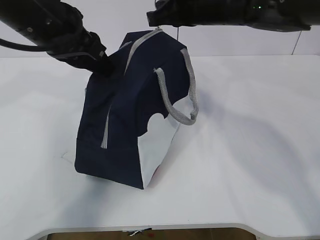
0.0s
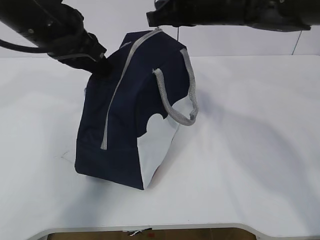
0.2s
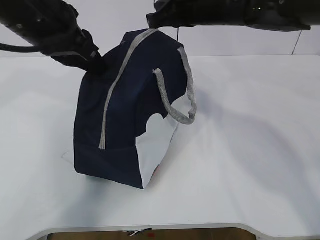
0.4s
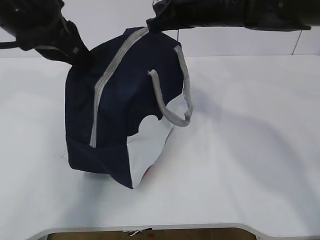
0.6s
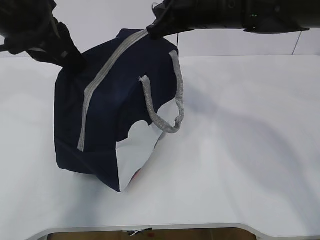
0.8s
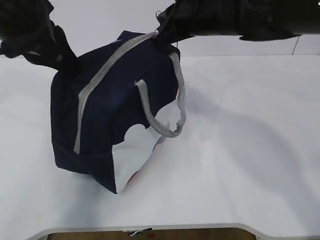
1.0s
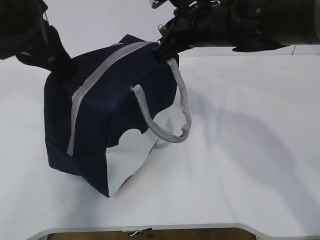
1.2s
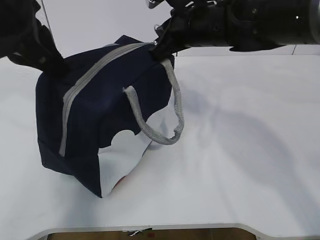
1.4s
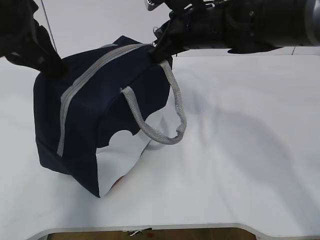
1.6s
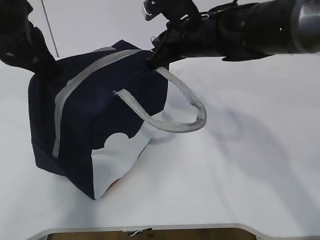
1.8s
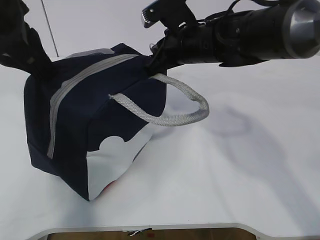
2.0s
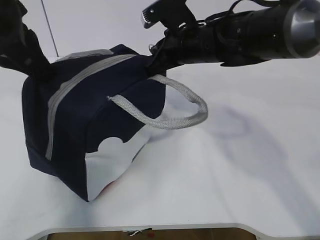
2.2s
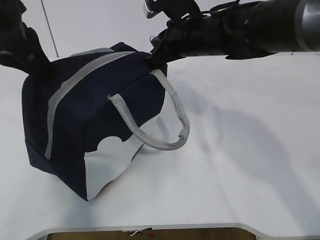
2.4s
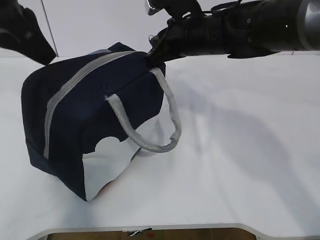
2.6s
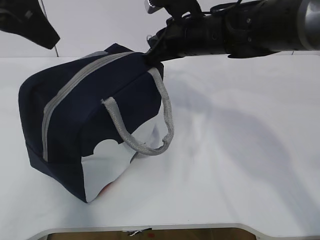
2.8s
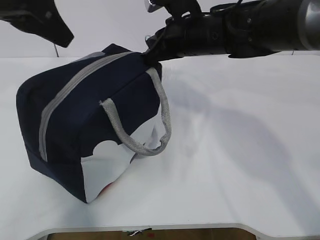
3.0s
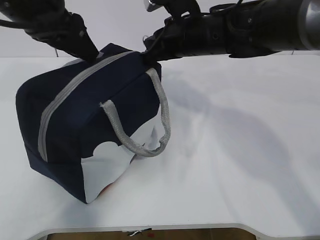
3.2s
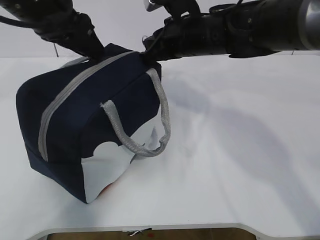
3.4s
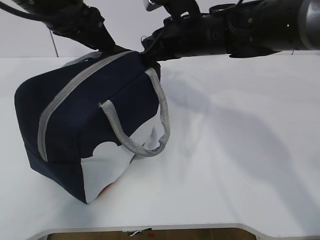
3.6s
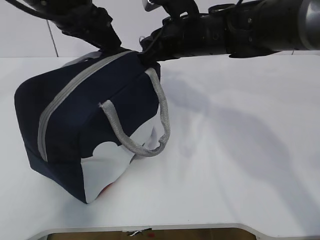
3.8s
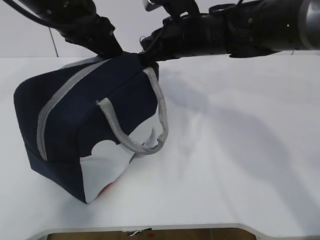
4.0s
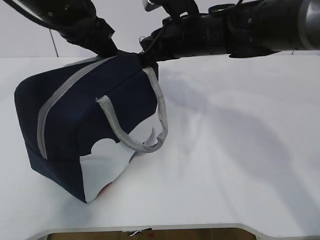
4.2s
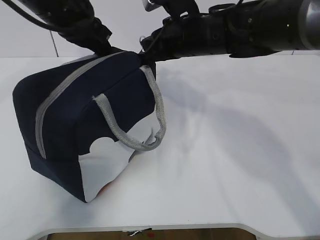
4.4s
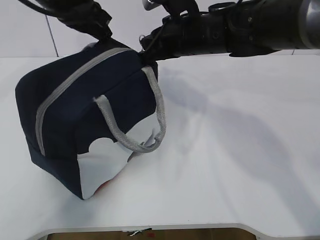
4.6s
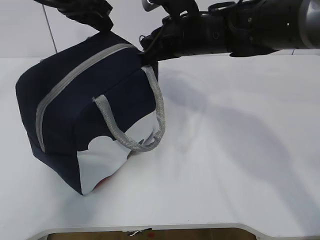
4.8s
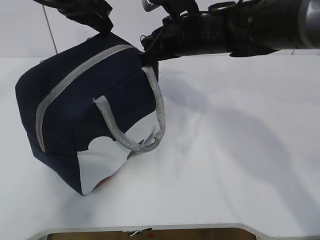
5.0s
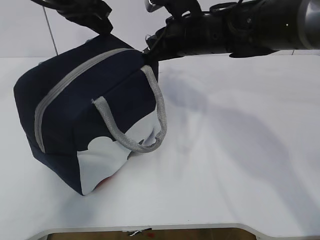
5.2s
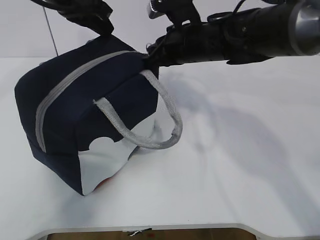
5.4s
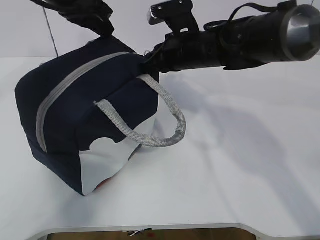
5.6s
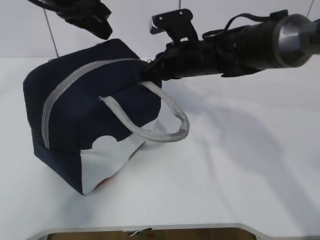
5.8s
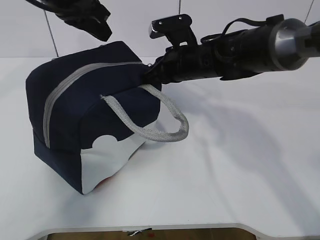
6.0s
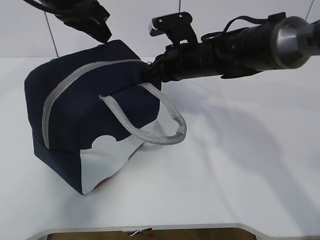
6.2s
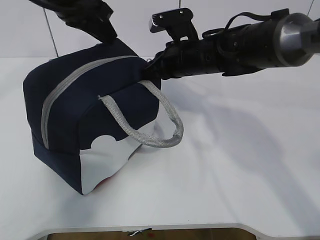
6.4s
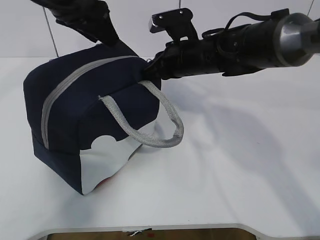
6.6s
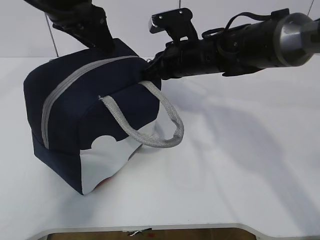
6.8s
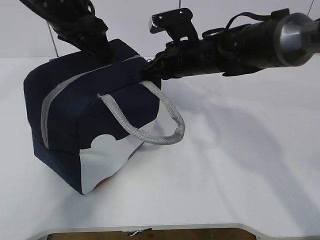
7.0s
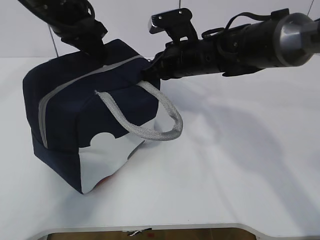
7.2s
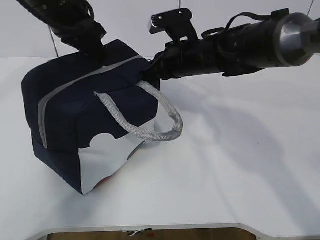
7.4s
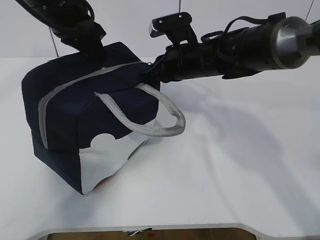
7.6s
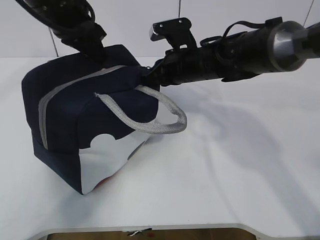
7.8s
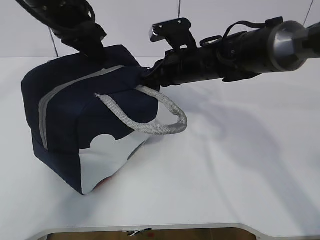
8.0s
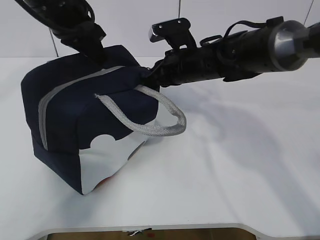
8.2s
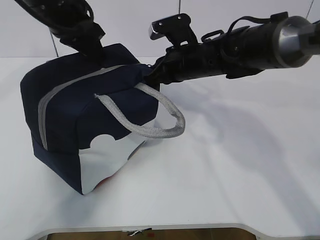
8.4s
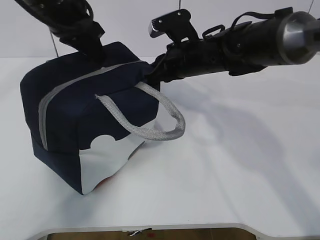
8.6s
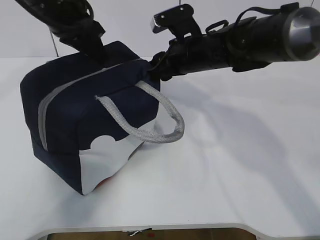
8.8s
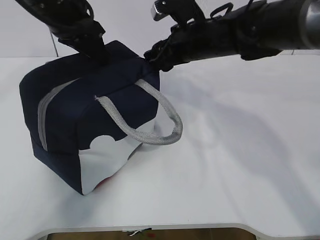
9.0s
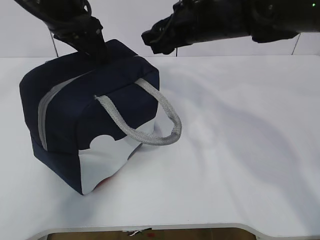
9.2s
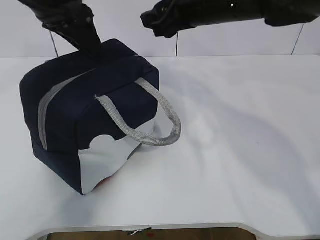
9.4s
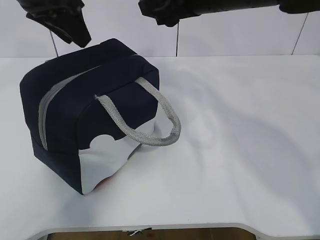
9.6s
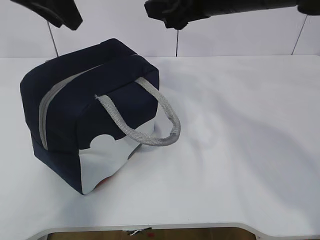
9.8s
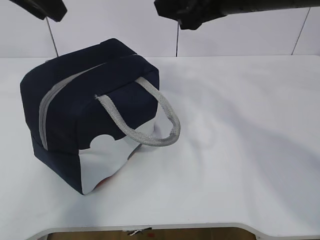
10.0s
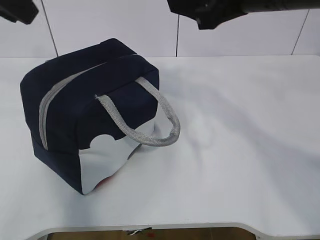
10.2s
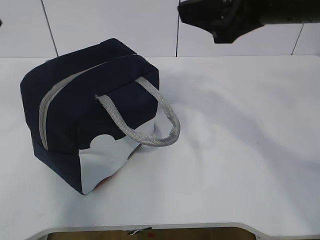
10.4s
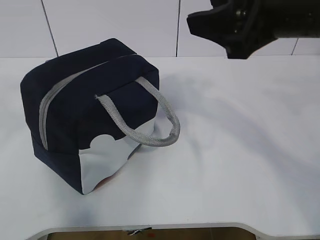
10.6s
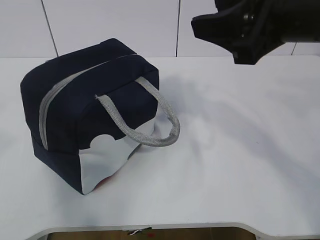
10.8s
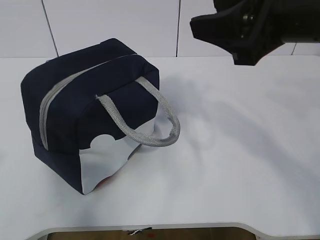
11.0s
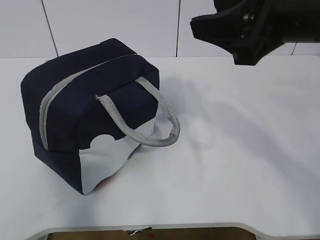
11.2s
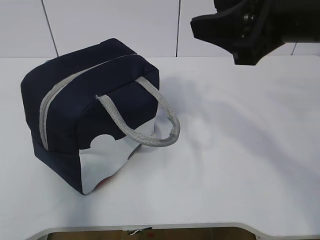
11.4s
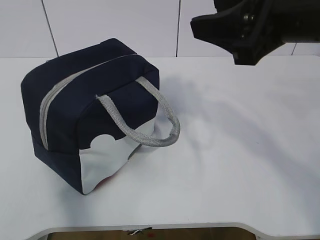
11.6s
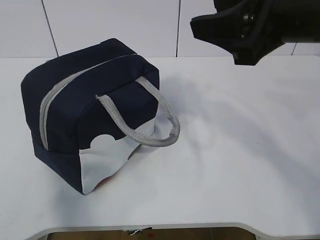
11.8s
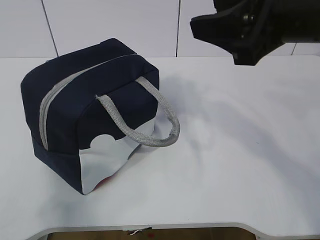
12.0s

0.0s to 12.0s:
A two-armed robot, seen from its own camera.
0.0s to 1.6s: The left gripper changes place by about 5 cm, and closes its fingers.
1.6s to 3.0s: The left gripper opens its fingers.
3.0s to 4.4s: The left gripper moves forward and downward, about 10 cm, and closes its fingers.
4.4s to 6.0s: The right gripper travels downward by about 5 cm.
6.0s to 7.6s: The left gripper opens, then closes once more.
7.6s to 9.0s: The right gripper opens. Meanwhile the left gripper opens its fingers.
9.0s to 10.4s: The left gripper goes approximately 20 cm backward, upward and to the left; the right gripper heads backward and upward, covering roughly 20 cm.
10.4s to 12.0s: The left gripper moves backward, downward and to the left, about 30 cm.

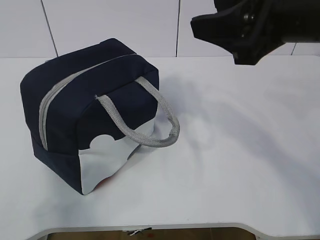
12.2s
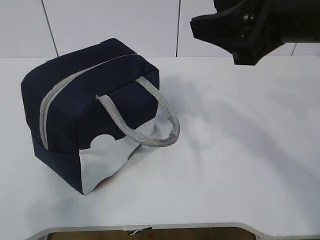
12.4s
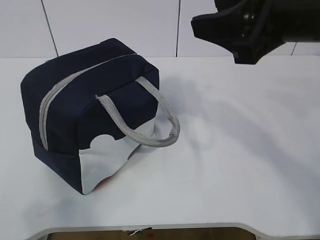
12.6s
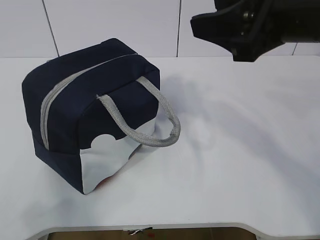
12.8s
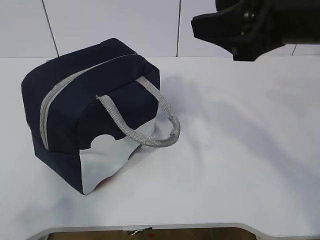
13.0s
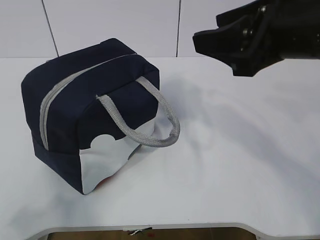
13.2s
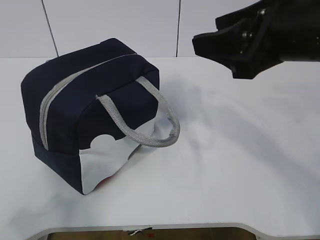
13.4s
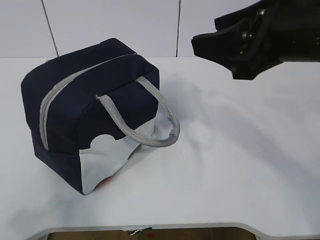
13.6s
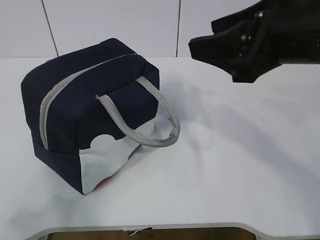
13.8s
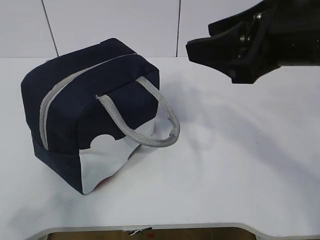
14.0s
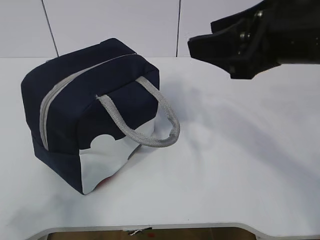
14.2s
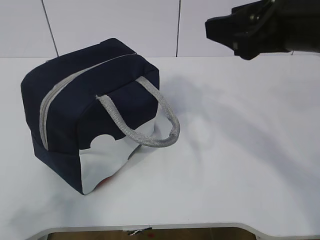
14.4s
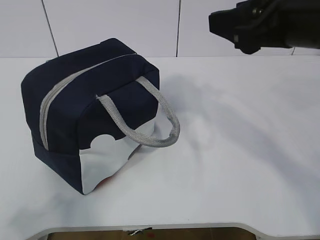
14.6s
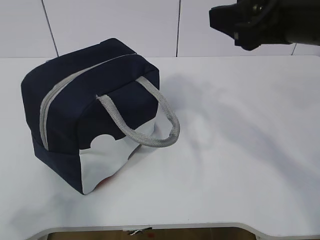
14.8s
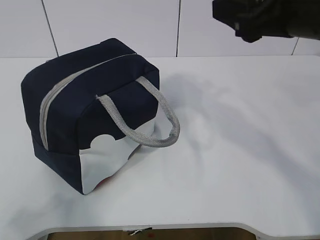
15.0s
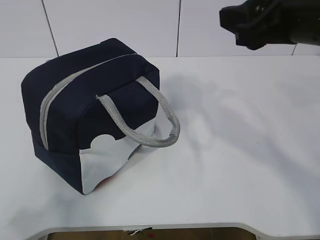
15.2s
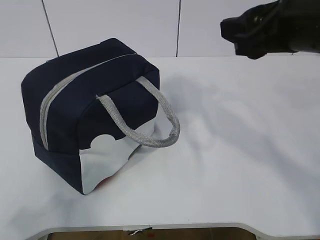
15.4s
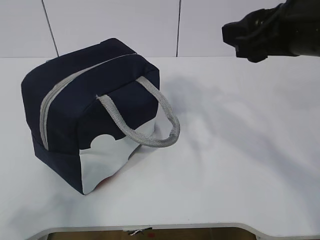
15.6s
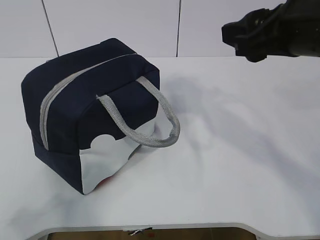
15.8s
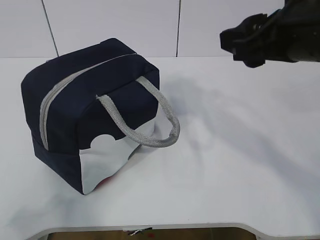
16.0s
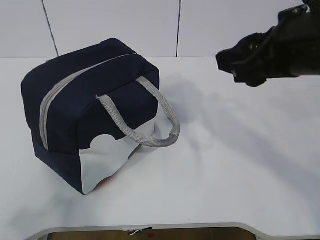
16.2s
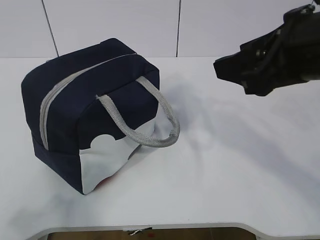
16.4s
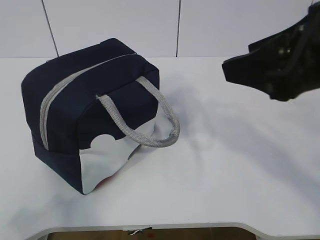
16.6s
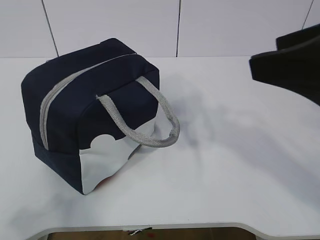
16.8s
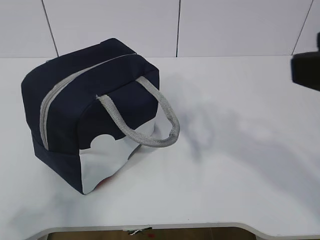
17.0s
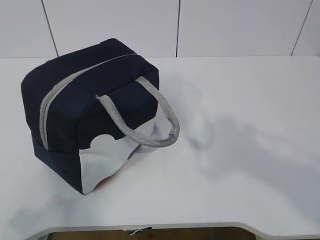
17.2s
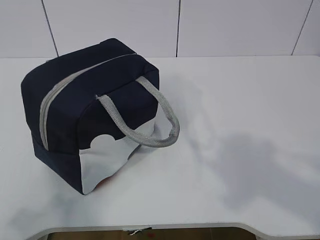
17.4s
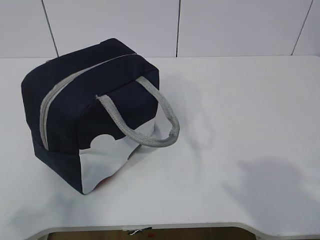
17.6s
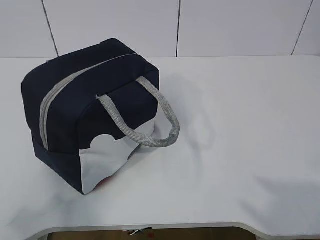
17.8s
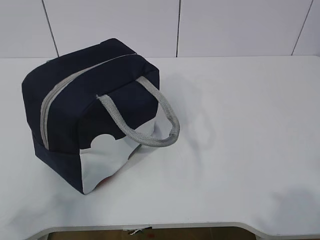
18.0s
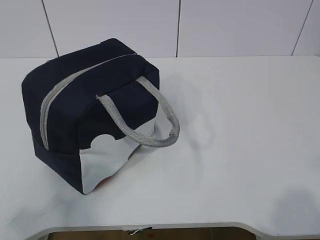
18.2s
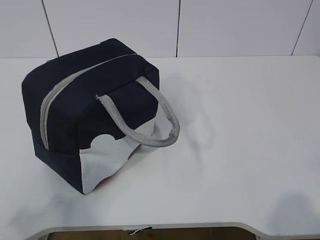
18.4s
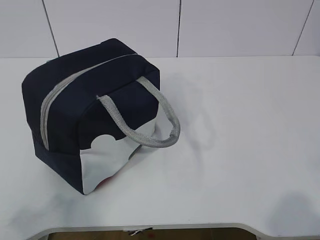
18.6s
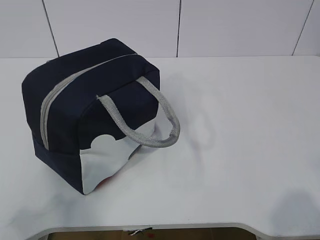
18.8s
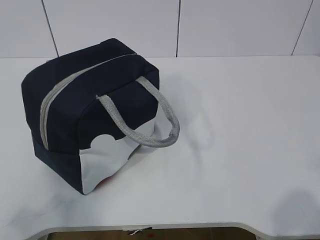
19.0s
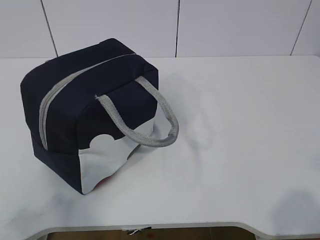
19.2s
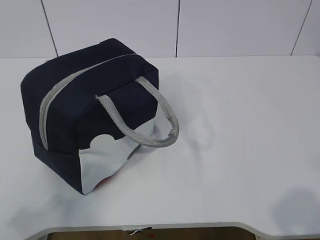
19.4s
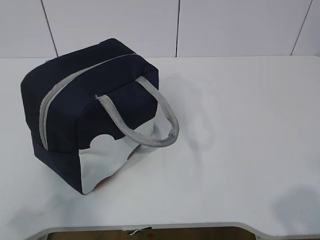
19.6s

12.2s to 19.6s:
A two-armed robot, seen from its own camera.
13.6s to 15.2s: The grippers stay close to where they were, moving slightly.
15.2s to 16.6s: The right gripper heads backward, covering some 5 cm.
16.6s to 18.2s: The right gripper shifts roughly 25 cm backward and to the right.

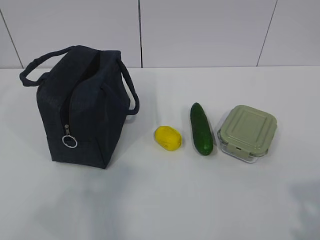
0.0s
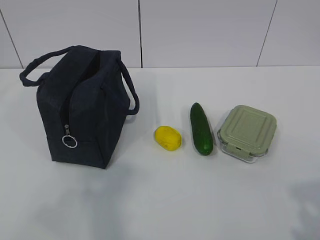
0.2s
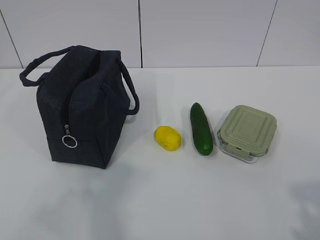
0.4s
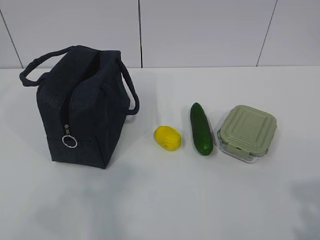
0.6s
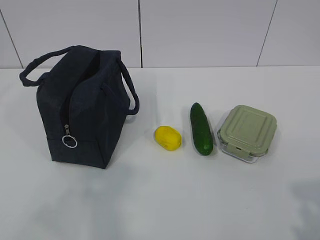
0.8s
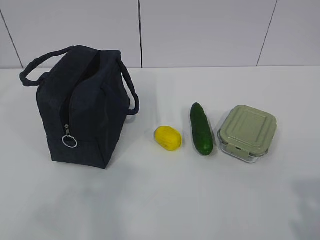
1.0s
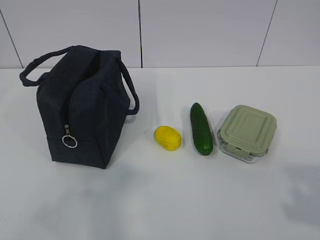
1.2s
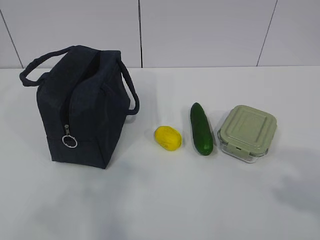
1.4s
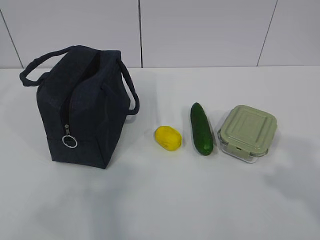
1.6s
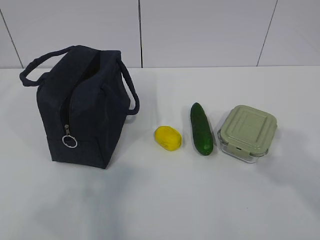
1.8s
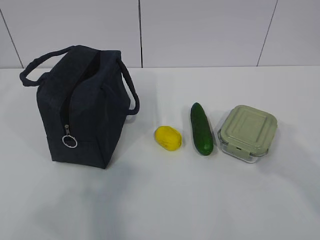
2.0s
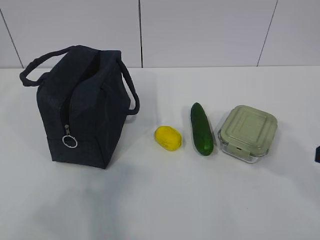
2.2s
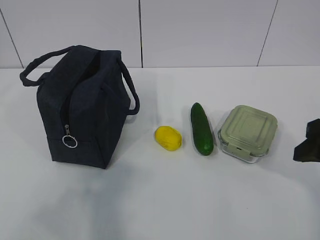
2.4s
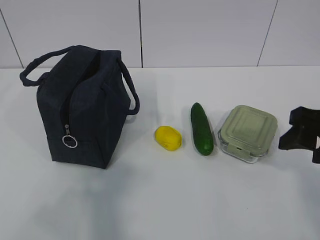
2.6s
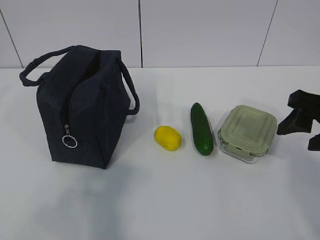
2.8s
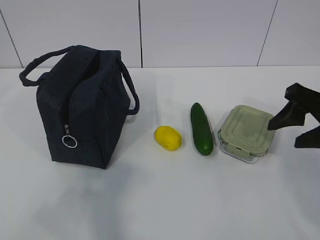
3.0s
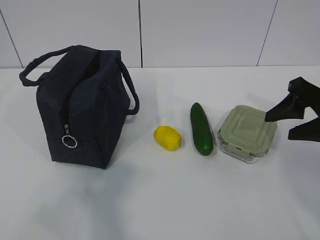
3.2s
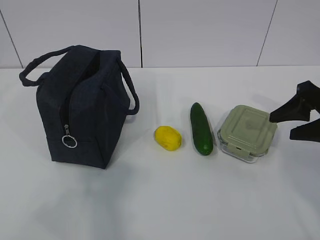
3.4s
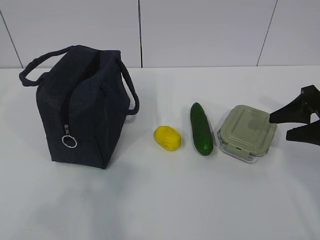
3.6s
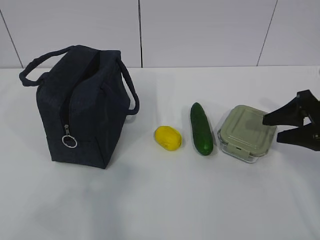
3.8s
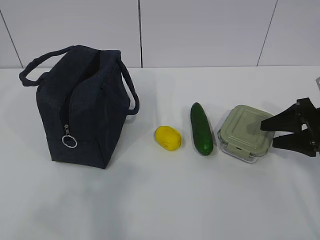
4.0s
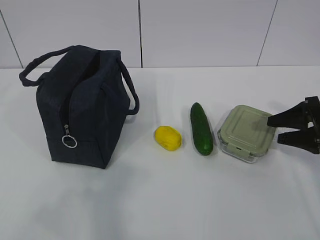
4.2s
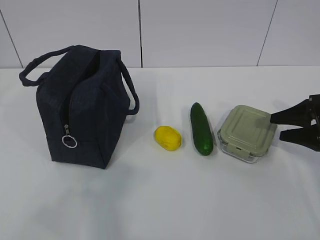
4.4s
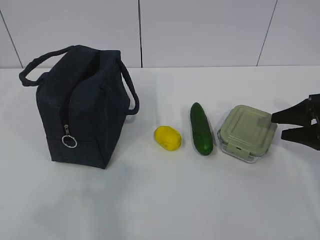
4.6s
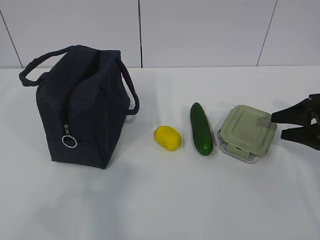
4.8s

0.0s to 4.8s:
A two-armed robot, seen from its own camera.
1.6s to 3.2s: The right gripper shifts roughly 20 cm forward.
3.2s to 4.8s: The right gripper heads downward and to the right, covering approximately 10 cm.
